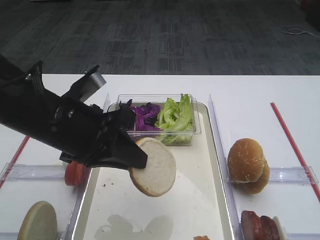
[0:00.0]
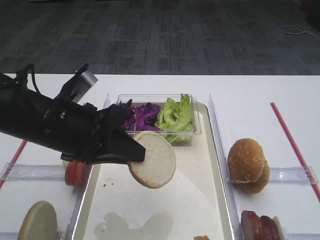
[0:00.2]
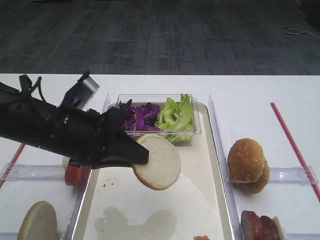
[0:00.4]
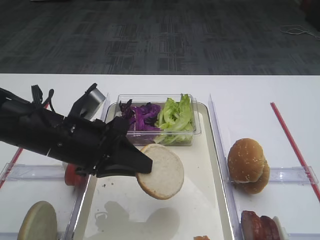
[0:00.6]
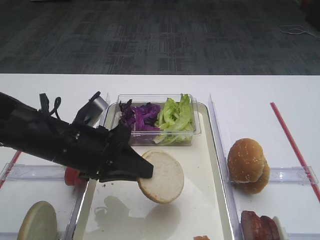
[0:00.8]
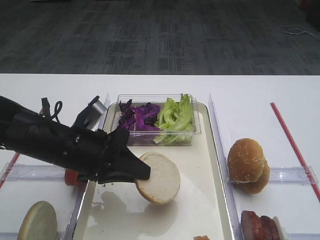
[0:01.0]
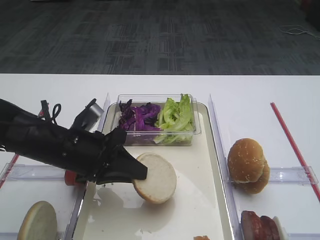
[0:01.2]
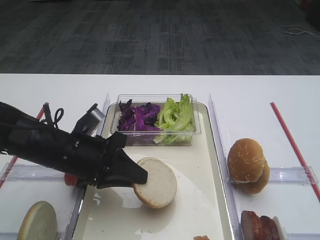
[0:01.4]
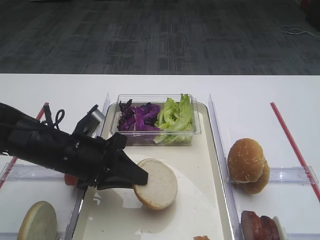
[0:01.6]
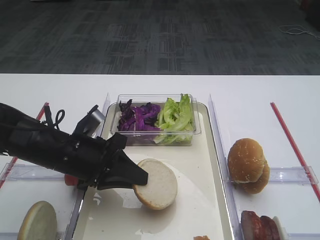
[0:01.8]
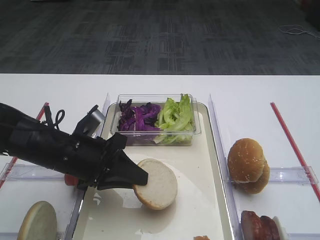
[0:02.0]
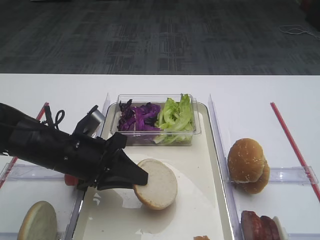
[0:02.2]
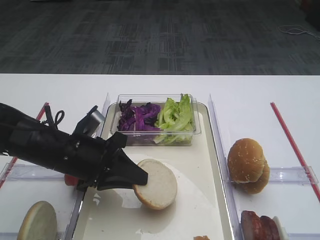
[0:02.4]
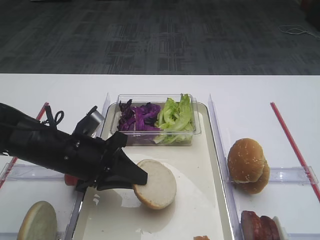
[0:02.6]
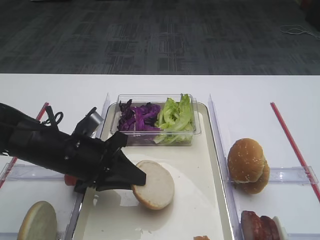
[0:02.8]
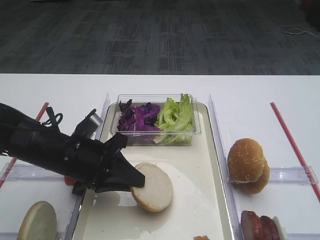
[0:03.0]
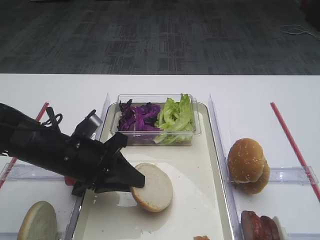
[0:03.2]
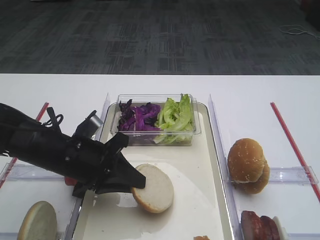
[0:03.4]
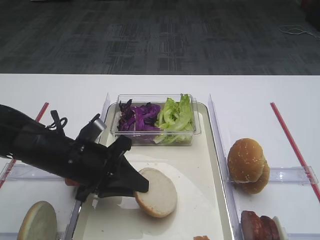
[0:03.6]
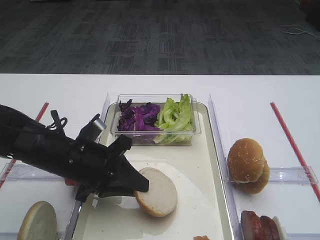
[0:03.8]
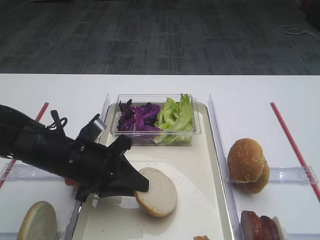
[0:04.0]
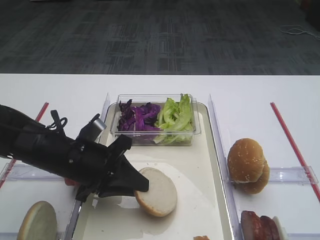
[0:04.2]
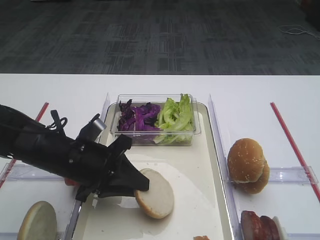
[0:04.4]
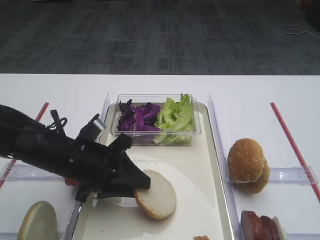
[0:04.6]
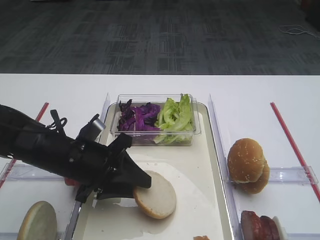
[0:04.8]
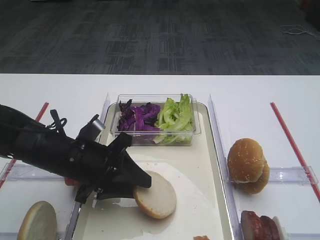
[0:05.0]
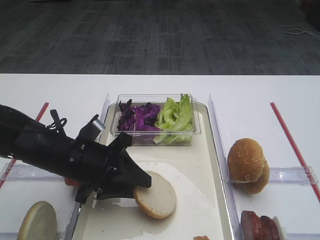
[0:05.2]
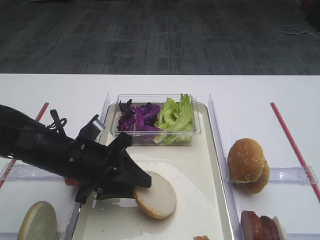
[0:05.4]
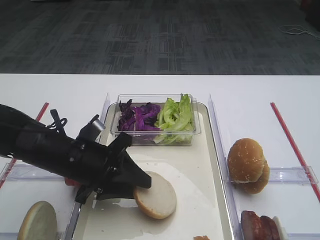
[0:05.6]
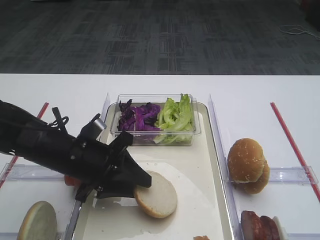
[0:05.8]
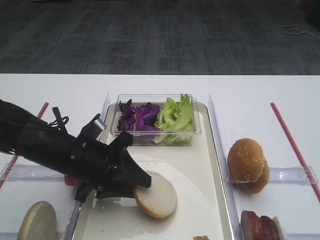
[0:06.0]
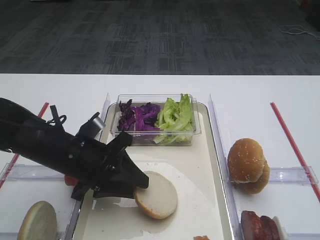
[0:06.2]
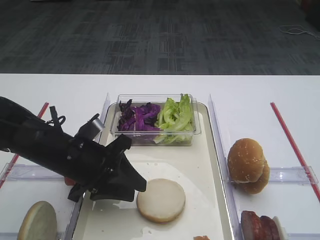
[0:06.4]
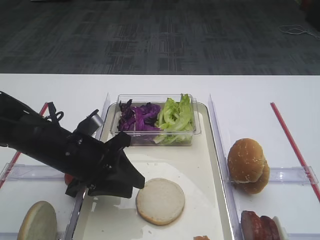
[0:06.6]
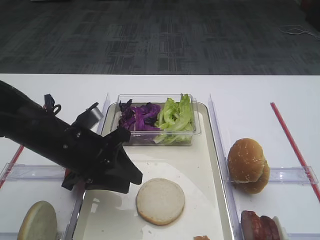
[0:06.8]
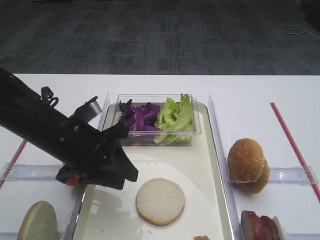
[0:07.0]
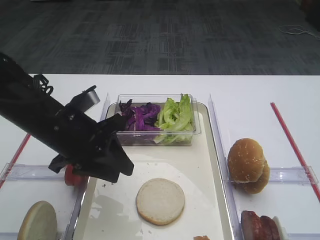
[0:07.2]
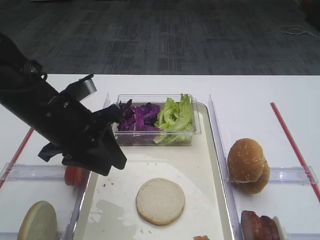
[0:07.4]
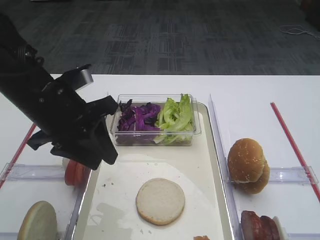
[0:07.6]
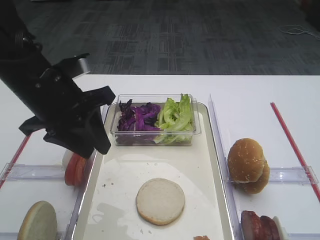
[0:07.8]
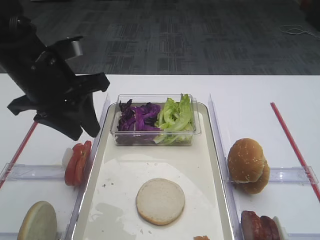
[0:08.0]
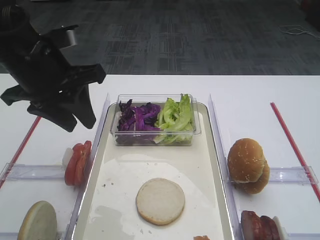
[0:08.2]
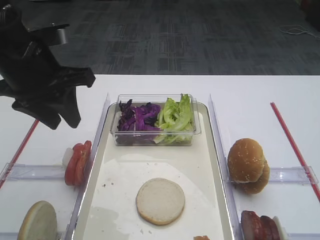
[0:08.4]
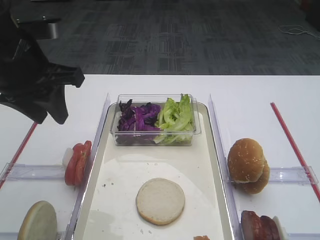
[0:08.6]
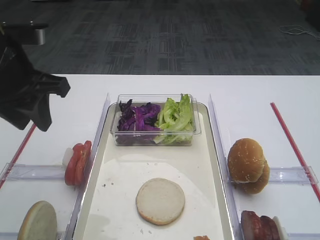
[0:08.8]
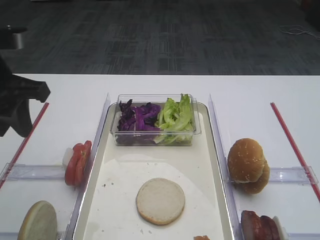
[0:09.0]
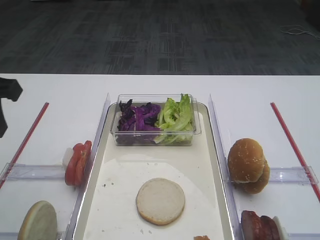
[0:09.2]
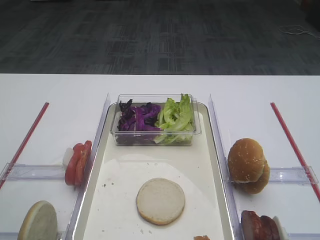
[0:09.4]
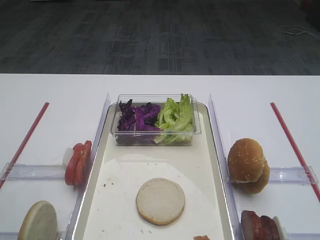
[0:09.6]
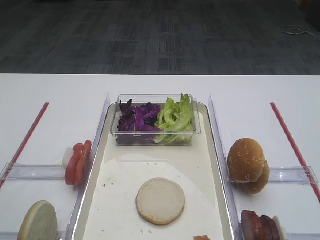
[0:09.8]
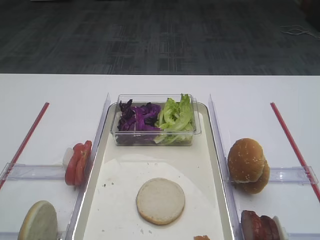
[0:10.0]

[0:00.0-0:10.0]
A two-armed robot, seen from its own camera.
Step, 0:00.0 to 0:07.0: Place the bread slice on the tray with the left gripper.
0:00.0 to 0:01.4: The left gripper moves downward, about 10 cm.
0:01.4 to 0:04.2: The grippers stay close to where they were, moving slightly.
0:04.2 to 0:05.8: The left gripper opens its fingers.
0:05.8 to 0:07.2: The left gripper shifts roughly 5 cm upward.
0:07.2 to 0:08.6: The left gripper shifts about 10 cm upward.
0:08.6 to 0:10.0: The left gripper is displaced backward and to the left by about 20 cm.

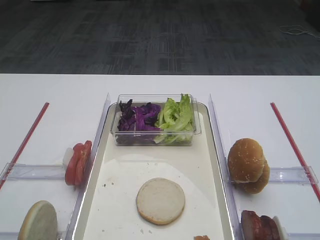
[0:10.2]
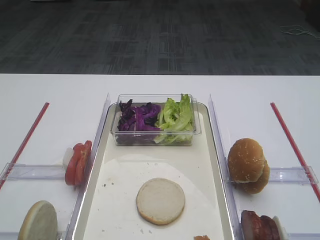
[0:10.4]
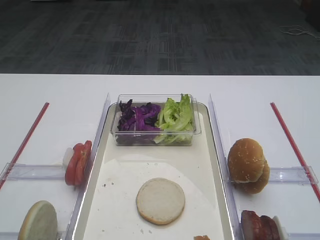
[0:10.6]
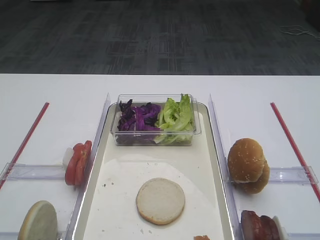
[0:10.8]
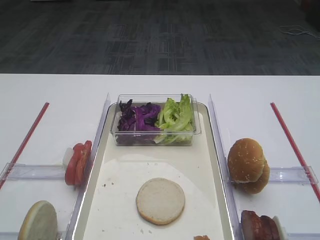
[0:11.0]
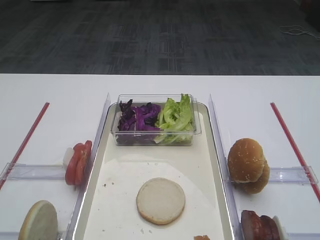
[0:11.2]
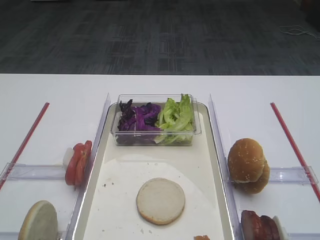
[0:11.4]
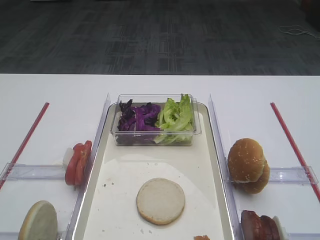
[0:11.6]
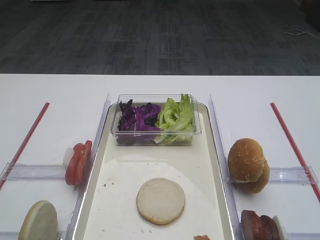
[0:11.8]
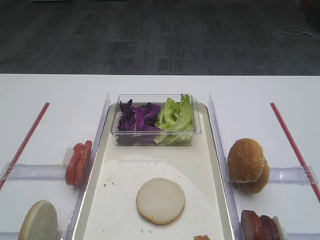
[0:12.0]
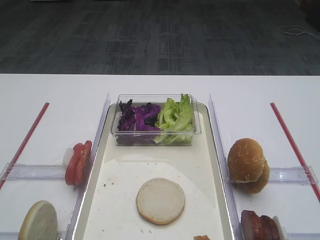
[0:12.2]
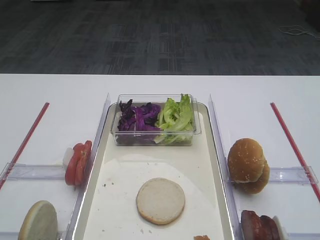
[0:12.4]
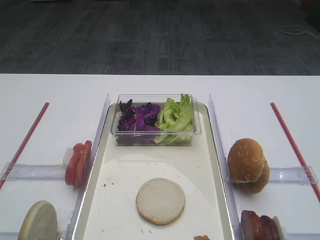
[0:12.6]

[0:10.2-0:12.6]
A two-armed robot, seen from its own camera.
0:11.4 to 0:12.6: The two grippers keep their place.

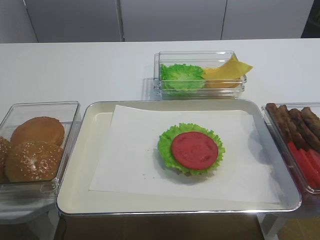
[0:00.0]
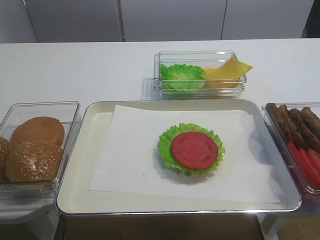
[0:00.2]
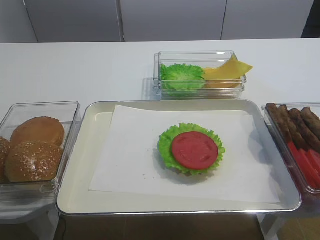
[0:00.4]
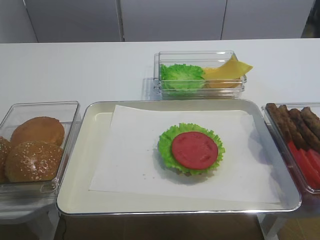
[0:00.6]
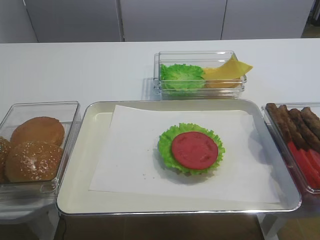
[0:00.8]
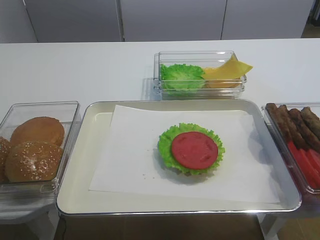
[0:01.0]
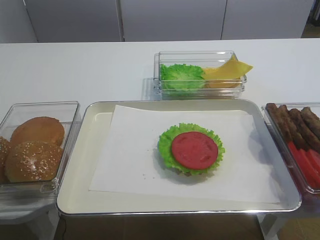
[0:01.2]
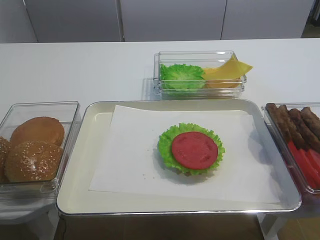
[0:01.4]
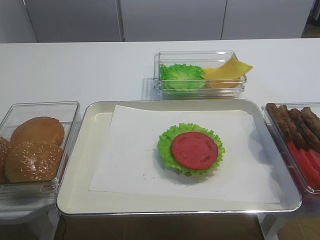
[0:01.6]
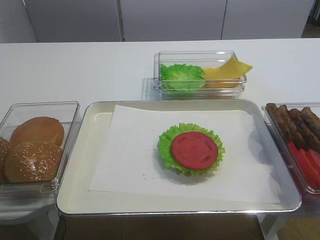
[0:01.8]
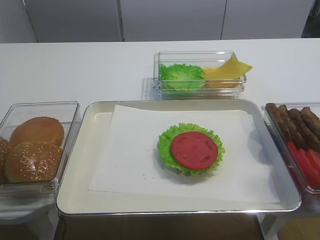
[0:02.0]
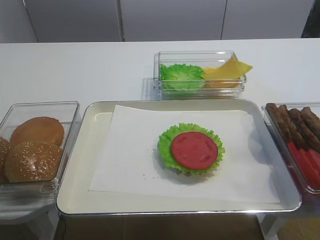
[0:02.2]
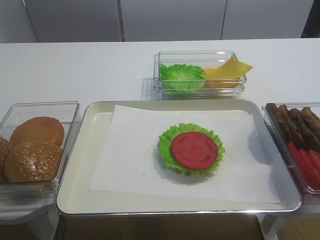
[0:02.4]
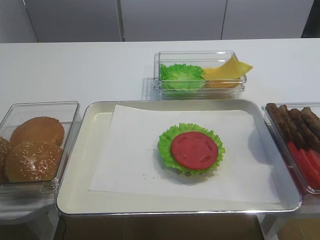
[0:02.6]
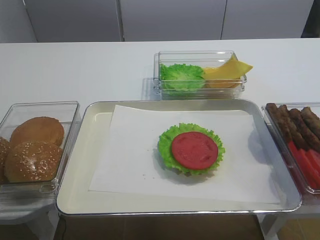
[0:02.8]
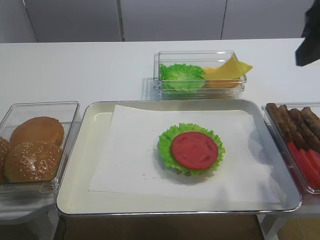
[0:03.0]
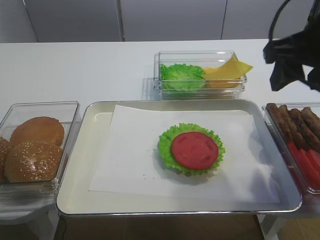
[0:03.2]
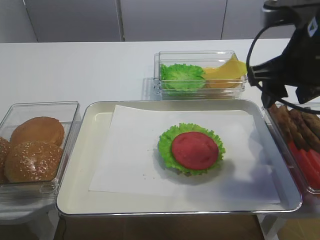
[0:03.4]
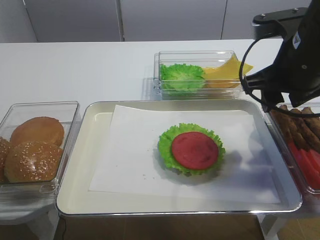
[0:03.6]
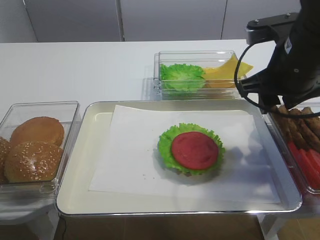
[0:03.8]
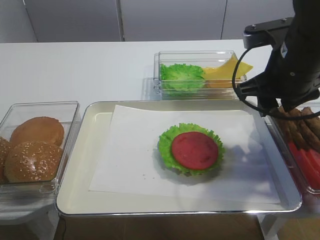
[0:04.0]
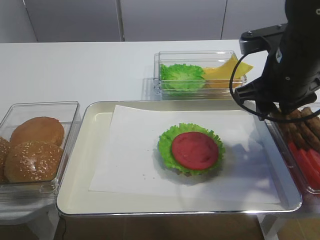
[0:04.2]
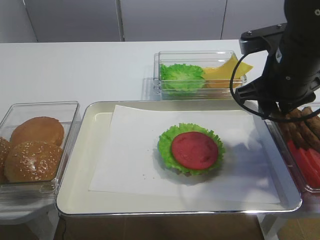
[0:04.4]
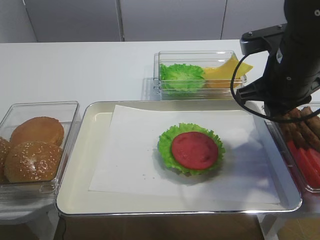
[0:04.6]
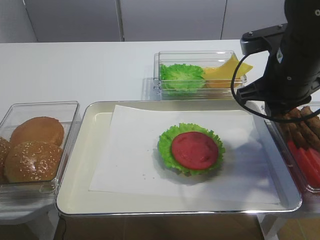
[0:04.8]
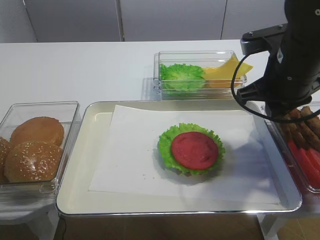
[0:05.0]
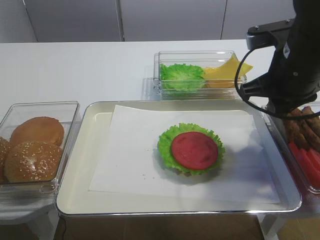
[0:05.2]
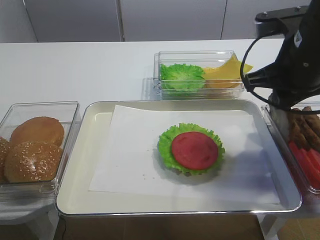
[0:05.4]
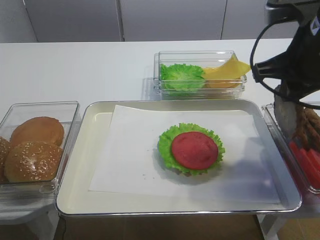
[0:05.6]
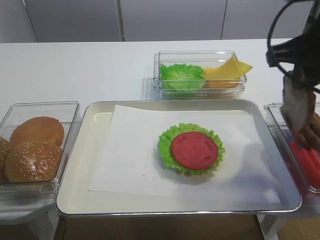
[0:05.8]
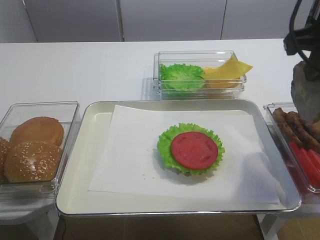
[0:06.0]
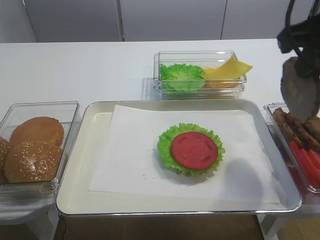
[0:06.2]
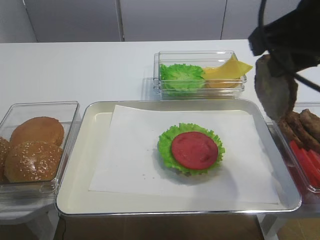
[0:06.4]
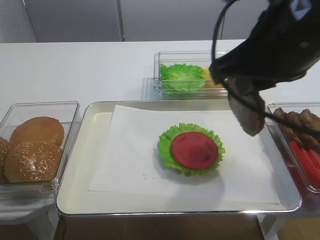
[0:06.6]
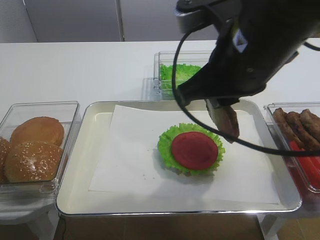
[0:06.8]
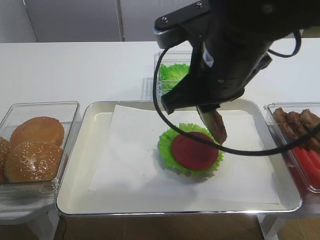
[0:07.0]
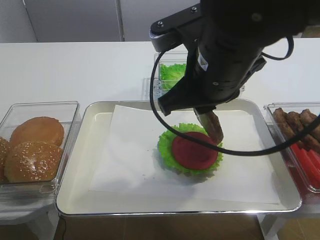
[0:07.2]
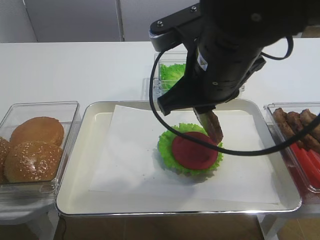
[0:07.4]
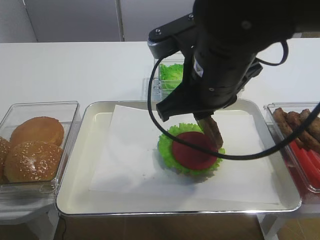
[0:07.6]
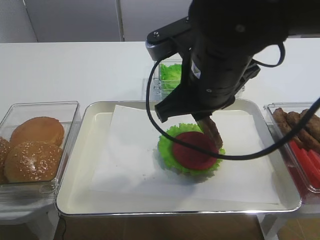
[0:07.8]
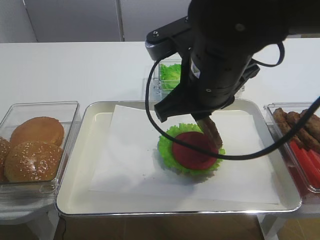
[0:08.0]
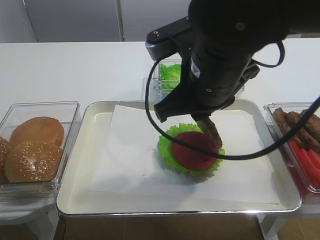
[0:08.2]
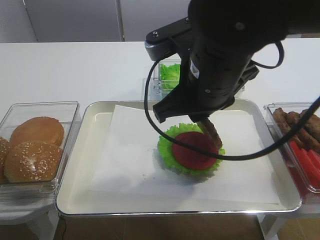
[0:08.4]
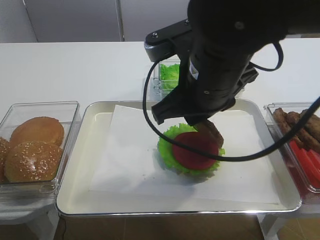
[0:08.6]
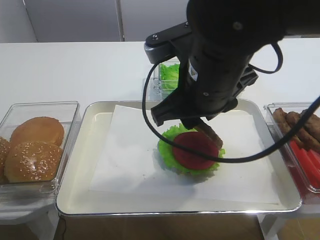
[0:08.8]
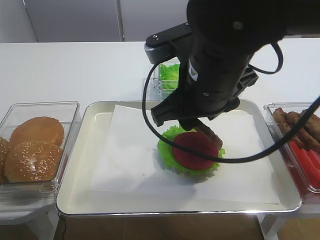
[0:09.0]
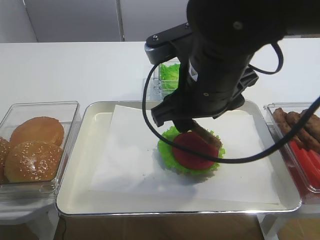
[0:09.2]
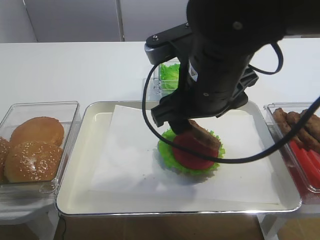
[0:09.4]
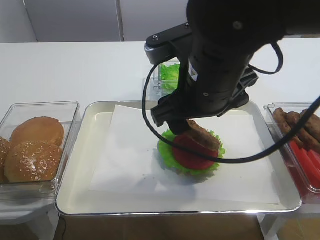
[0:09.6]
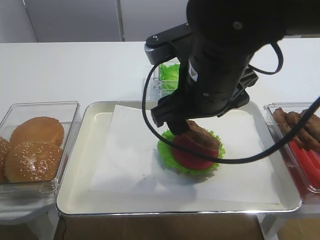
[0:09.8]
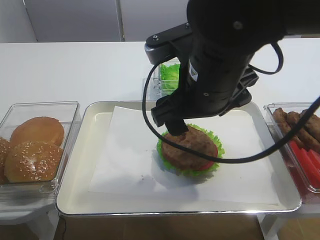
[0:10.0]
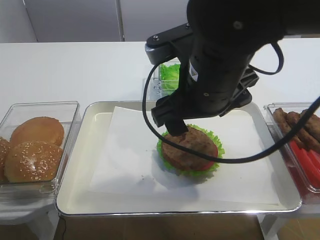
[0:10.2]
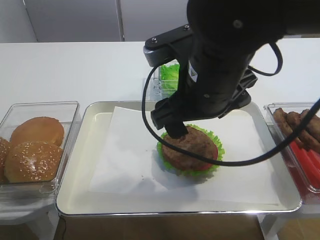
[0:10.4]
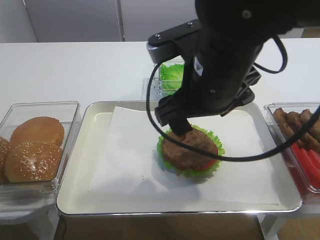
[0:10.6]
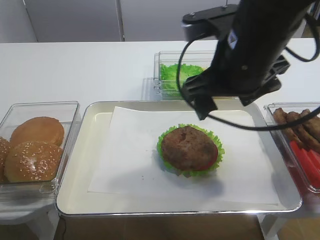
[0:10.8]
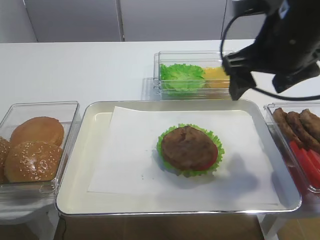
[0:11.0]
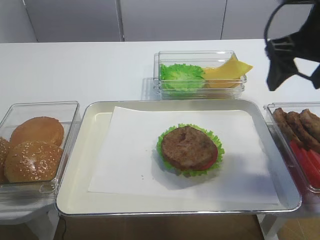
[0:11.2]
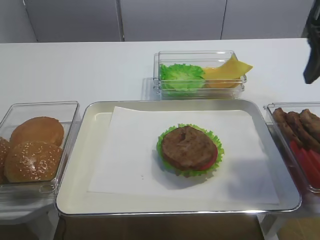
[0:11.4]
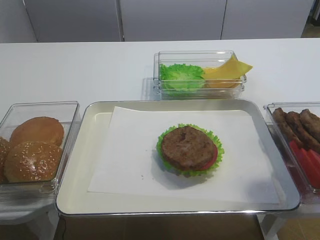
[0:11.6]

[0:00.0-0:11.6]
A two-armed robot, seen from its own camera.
Step, 0:00.0 to 0:05.4: Pick up the cutlet with the right gripper.
Step, 0:05.8 to 0:10.0: Place the cutlet on the tomato slice with the right gripper.
0:01.4 to 0:02.8: The right gripper moves forward and upward, approximately 20 cm.
0:02.8 to 0:04.4: The right gripper moves downward, forward and to the left, about 20 cm.
0:04.4 to 0:05.8: The right gripper is displaced upward by approximately 5 cm, and closes.
0:05.8 to 0:07.2: The right gripper shifts some 15 cm to the left.
0:07.2 to 0:08.8: Both grippers stay put.
0:08.8 to 0:10.2: The right gripper opens its fingers.
0:10.2 to 0:11.6: The right gripper goes roughly 20 cm to the right.
